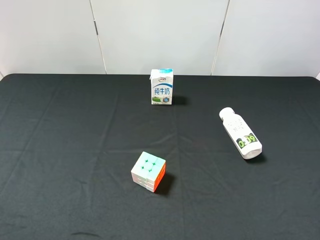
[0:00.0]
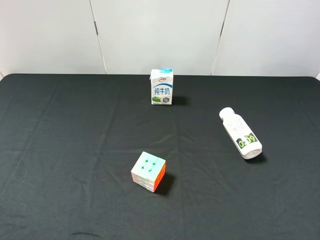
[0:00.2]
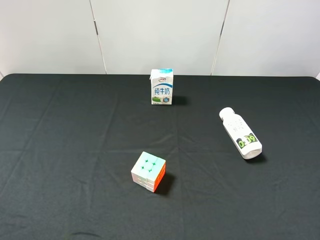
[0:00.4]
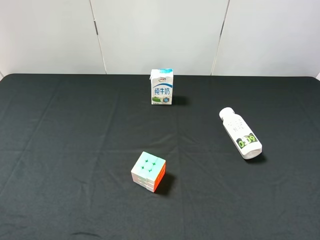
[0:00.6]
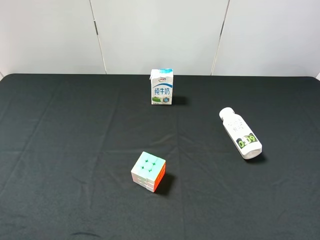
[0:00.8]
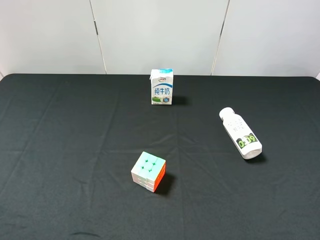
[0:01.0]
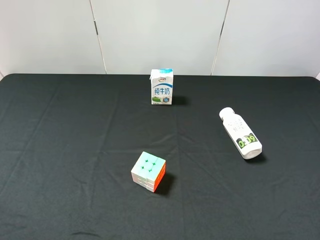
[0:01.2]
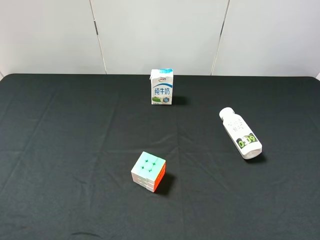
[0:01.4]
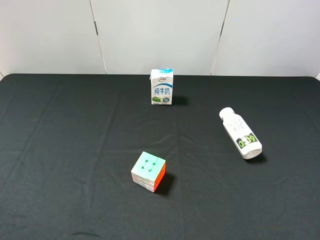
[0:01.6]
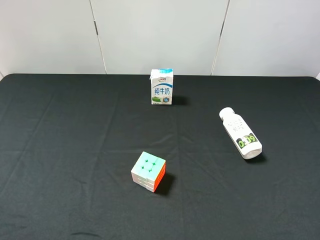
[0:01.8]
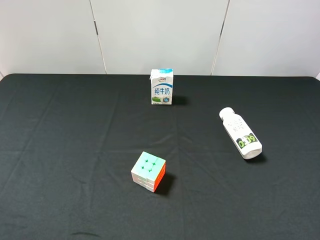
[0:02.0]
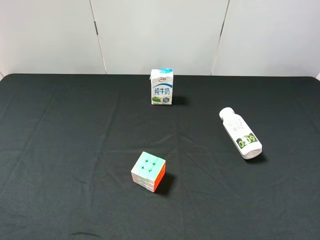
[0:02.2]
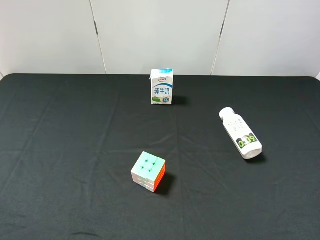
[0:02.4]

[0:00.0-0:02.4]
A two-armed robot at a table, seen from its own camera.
Task of the whole recording: use the left gripper to pick up the item and transfer it from the left gripper to the right gripper.
0:01.2 to 0:02.4: Both grippers stay put.

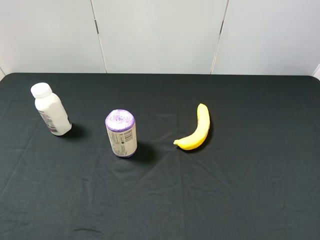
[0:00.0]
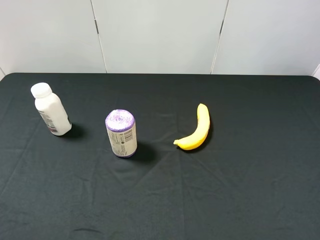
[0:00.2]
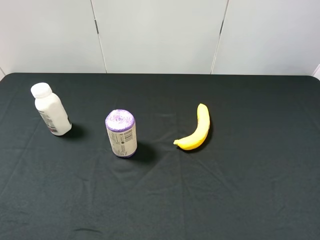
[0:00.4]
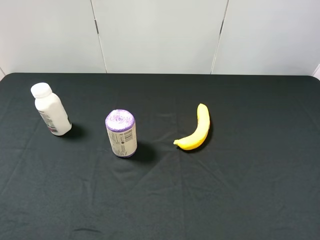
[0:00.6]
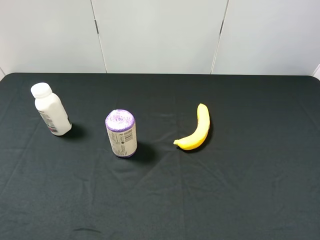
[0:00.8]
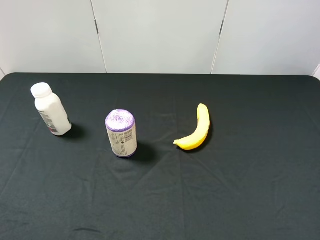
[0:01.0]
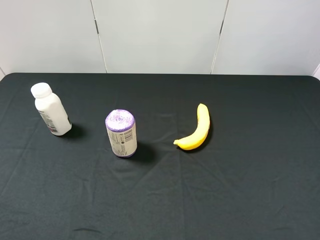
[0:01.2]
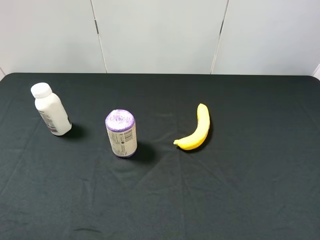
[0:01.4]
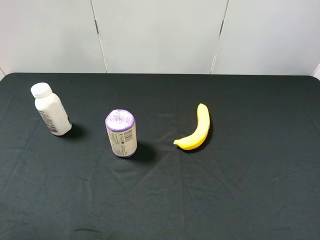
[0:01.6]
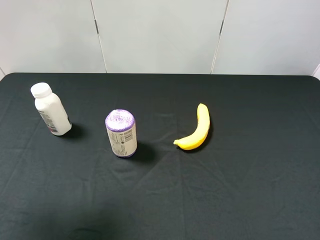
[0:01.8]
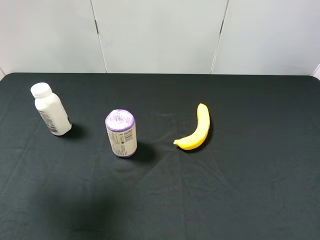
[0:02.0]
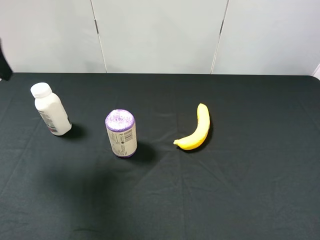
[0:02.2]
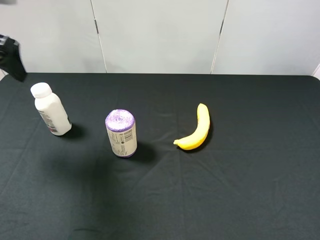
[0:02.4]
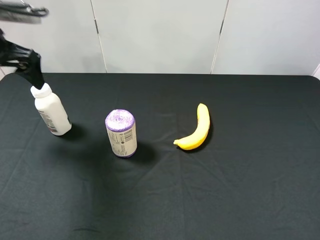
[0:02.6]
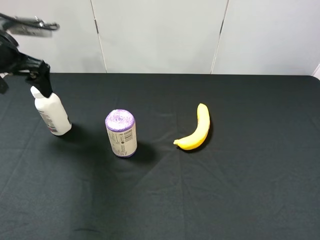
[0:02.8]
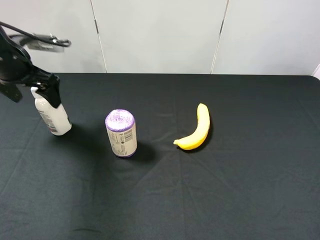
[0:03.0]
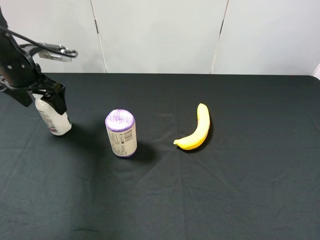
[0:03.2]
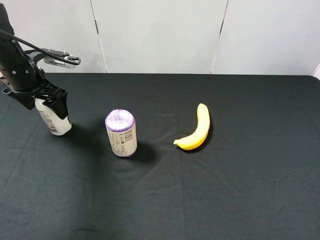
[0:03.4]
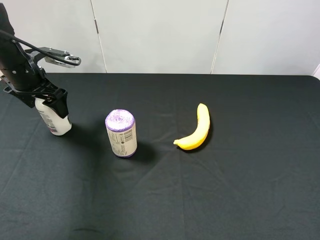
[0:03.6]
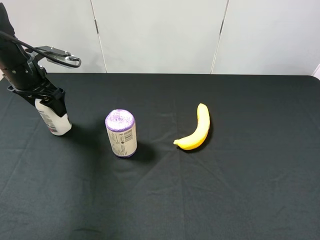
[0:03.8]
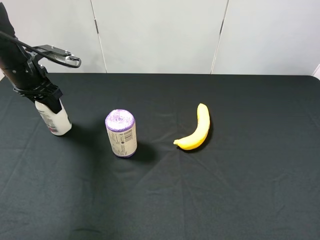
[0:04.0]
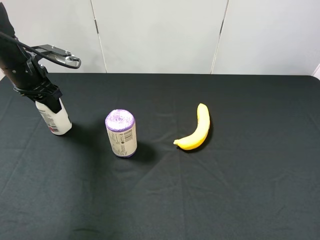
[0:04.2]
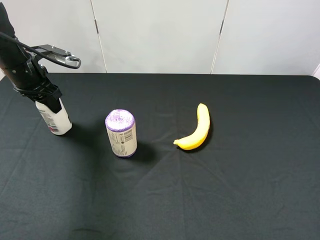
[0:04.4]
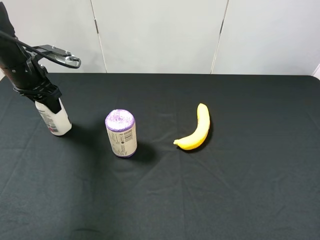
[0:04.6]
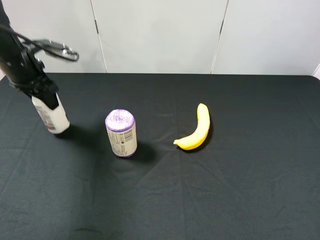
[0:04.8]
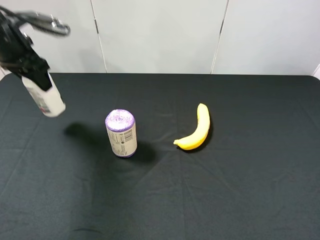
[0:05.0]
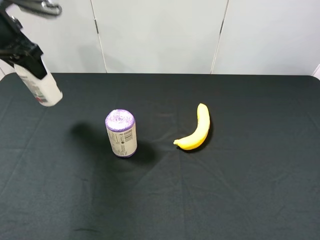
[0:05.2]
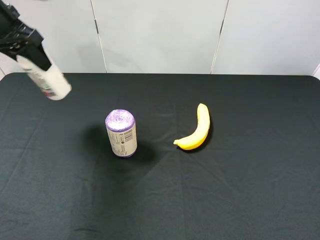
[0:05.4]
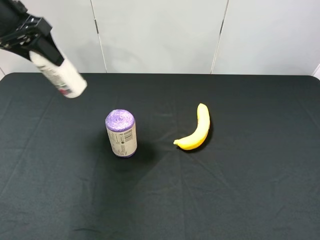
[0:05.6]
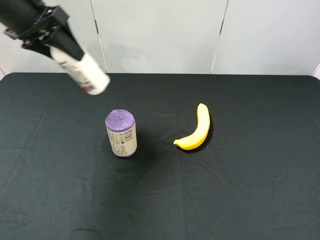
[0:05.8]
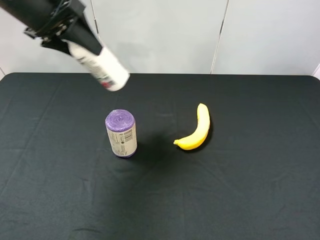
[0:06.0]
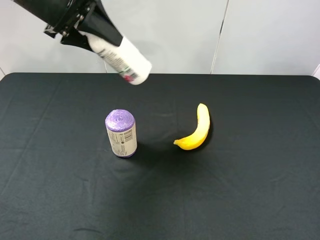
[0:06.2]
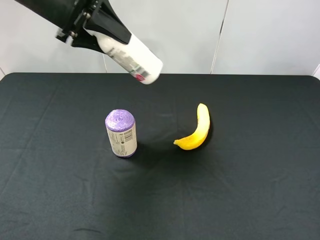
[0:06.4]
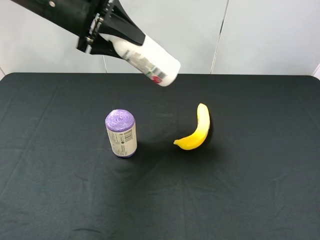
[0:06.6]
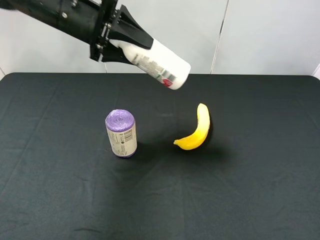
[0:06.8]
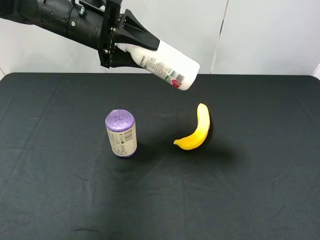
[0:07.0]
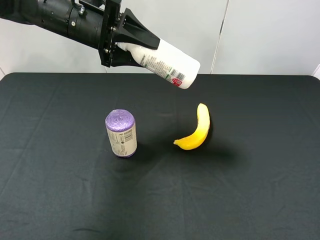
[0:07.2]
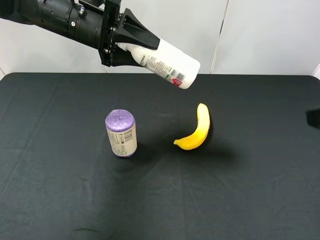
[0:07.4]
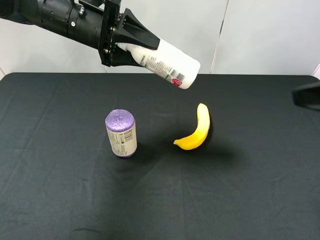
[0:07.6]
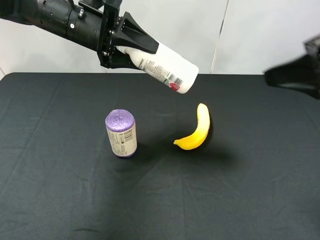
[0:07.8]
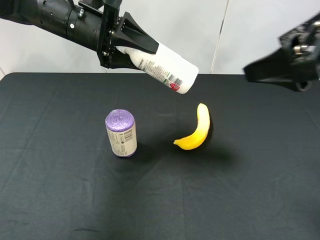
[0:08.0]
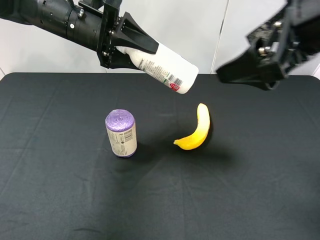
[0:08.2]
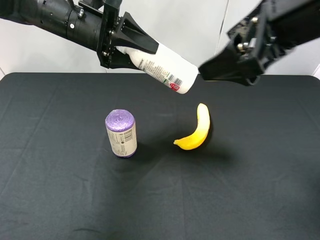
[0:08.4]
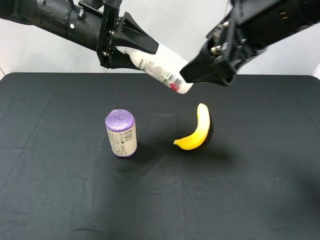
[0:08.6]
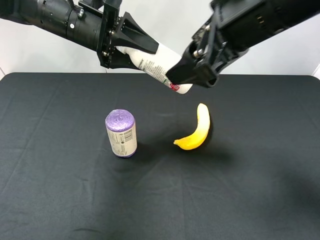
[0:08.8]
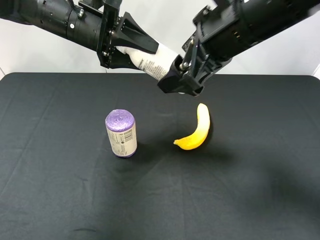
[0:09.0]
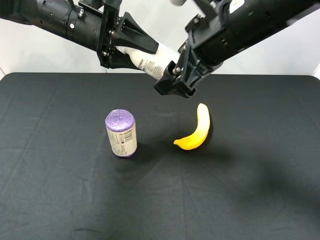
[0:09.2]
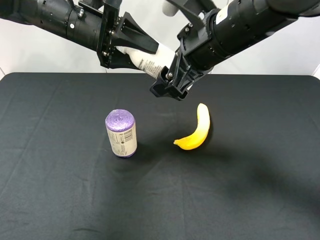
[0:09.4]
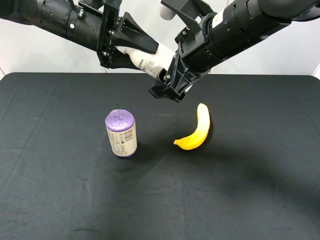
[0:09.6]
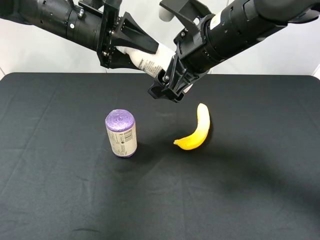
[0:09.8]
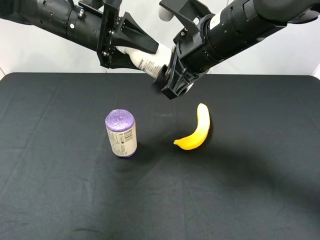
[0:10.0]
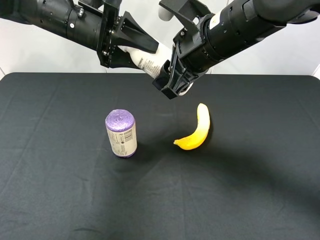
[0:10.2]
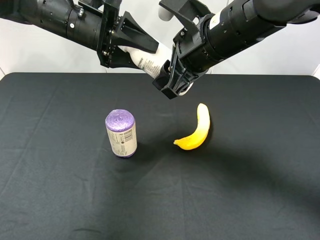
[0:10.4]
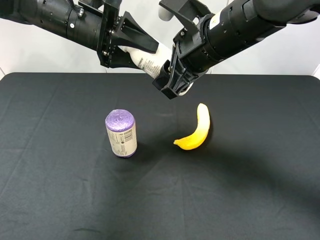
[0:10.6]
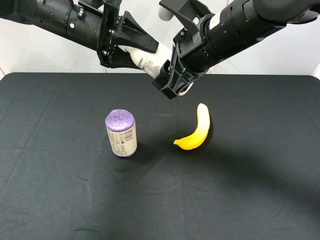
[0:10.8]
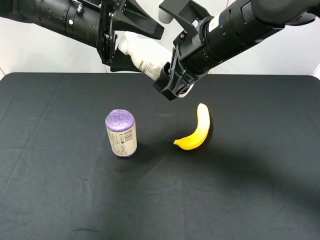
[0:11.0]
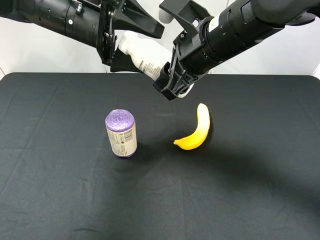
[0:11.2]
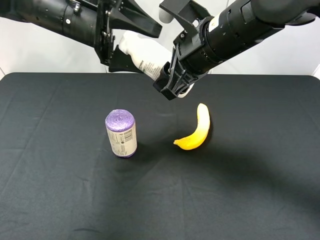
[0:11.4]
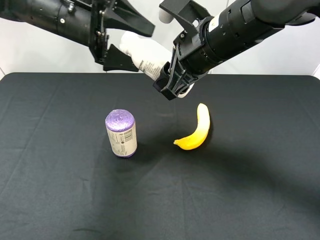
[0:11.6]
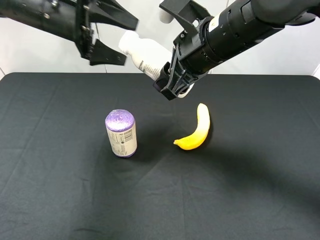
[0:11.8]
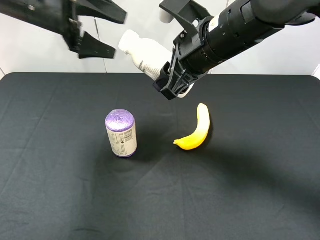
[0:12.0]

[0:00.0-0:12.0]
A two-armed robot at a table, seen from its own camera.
Task of the whole recording: use the left gripper to pick up the item and transfer it from the left gripper to the right gripper.
0:01.6 to 0:03.0: The left gripper goes roughly 30 cm forward and downward.
0:03.0 to 0:04.4: The left gripper closes its fingers.
0:04.4 to 0:06.0: The left gripper is displaced upward and to the right by about 15 cm.
0:06.0 to 0:07.6: The left gripper travels downward and to the right by some 10 cm. The right gripper goes about 15 cm forward and upward.
0:07.6 to 0:09.0: The right gripper moves to the left and forward, roughly 20 cm.
0:09.0 to 0:10.4: The right gripper closes its fingers.
0:10.4 to 0:12.0: The left gripper travels to the left by some 10 cm, and opens.

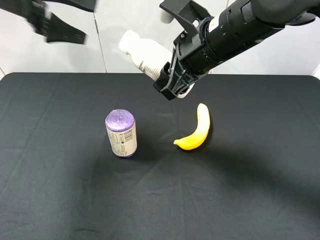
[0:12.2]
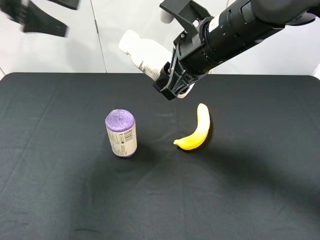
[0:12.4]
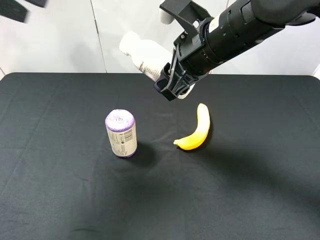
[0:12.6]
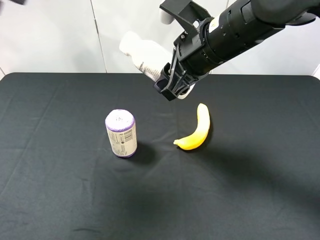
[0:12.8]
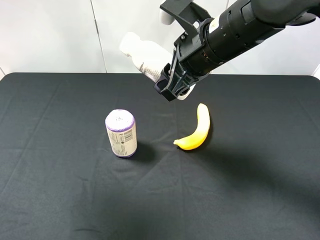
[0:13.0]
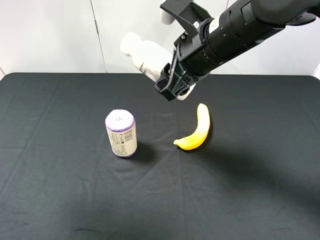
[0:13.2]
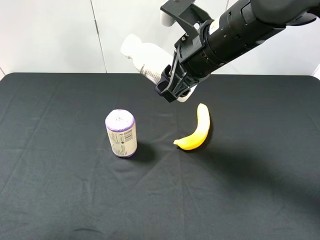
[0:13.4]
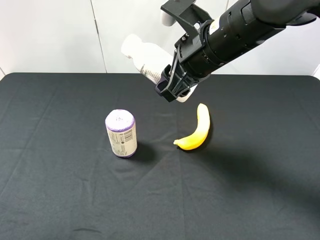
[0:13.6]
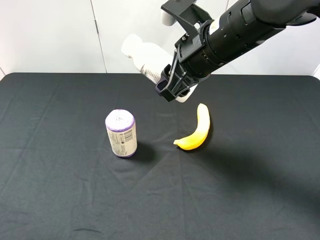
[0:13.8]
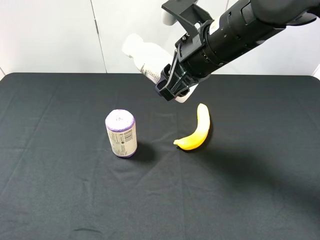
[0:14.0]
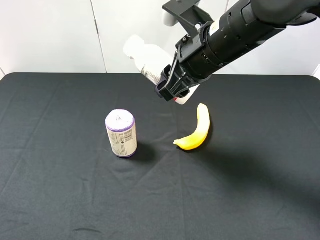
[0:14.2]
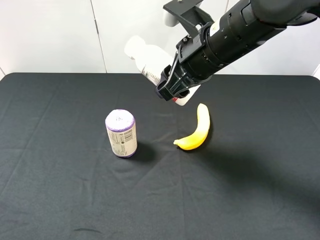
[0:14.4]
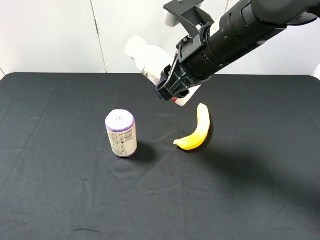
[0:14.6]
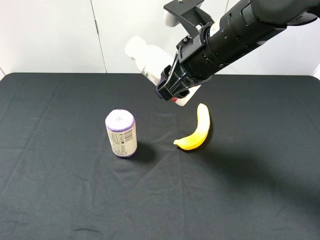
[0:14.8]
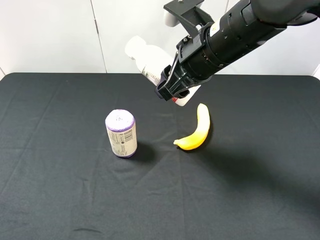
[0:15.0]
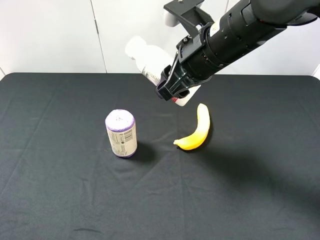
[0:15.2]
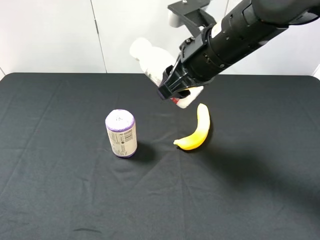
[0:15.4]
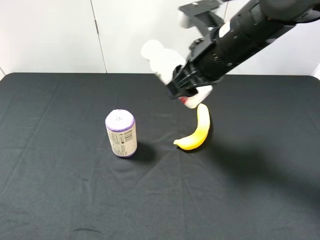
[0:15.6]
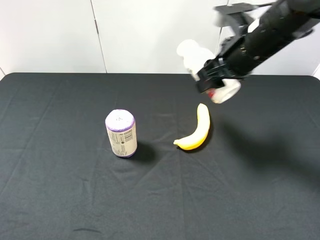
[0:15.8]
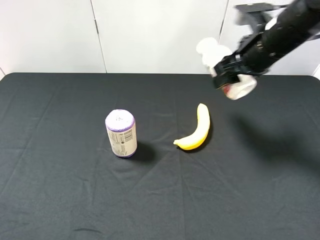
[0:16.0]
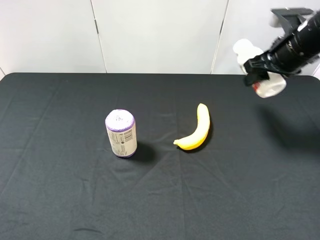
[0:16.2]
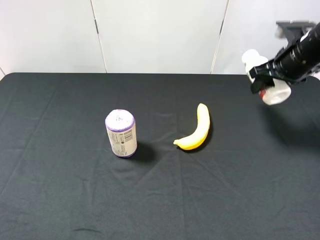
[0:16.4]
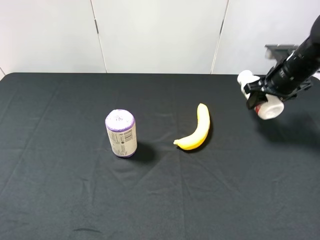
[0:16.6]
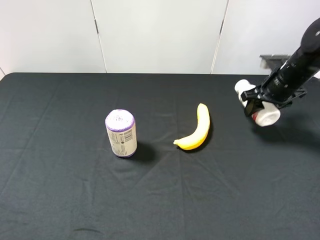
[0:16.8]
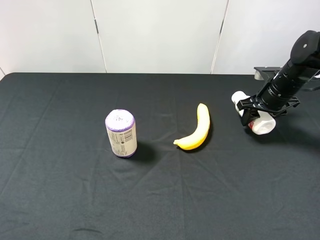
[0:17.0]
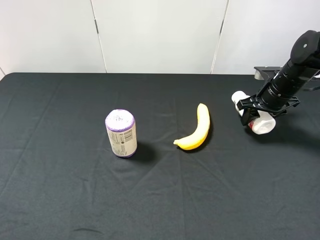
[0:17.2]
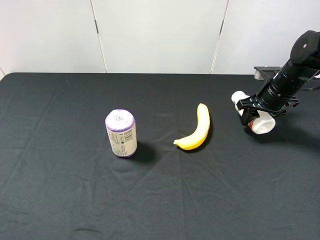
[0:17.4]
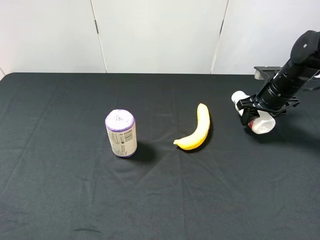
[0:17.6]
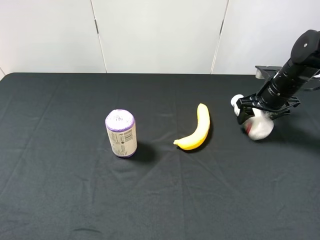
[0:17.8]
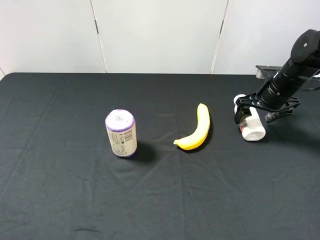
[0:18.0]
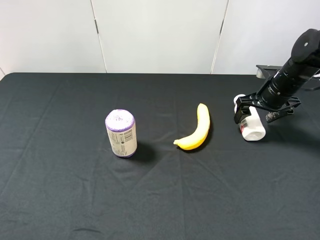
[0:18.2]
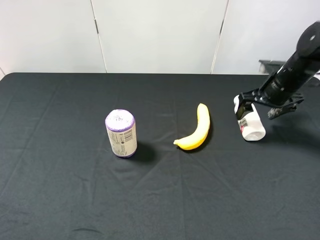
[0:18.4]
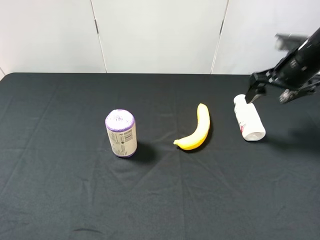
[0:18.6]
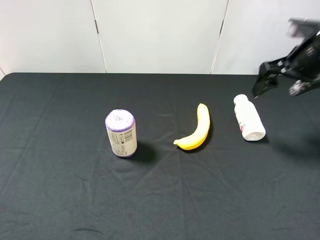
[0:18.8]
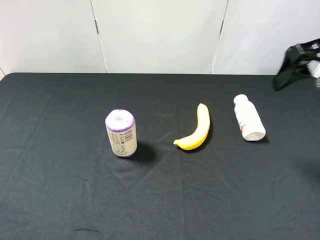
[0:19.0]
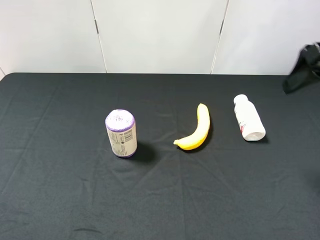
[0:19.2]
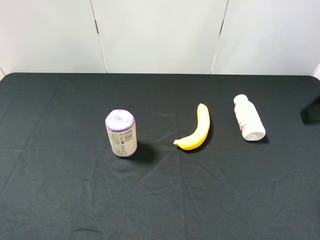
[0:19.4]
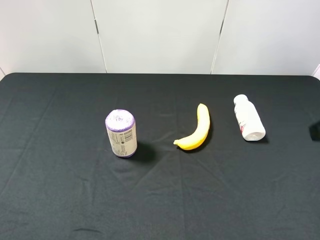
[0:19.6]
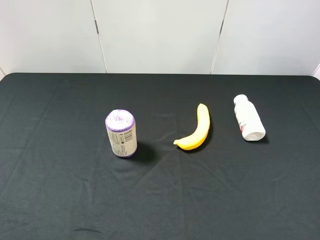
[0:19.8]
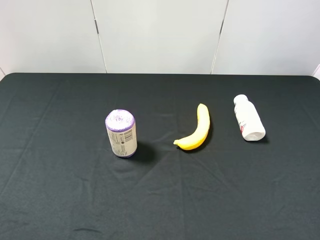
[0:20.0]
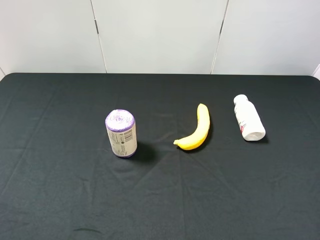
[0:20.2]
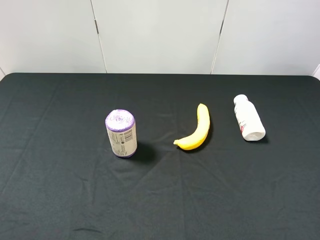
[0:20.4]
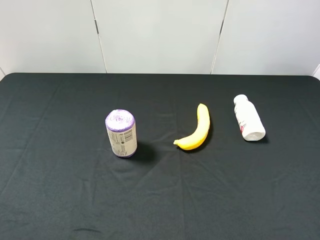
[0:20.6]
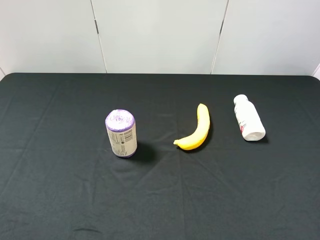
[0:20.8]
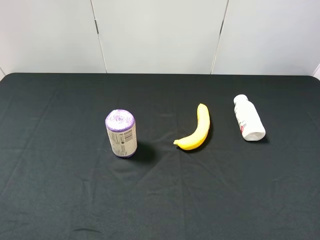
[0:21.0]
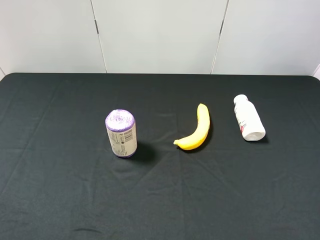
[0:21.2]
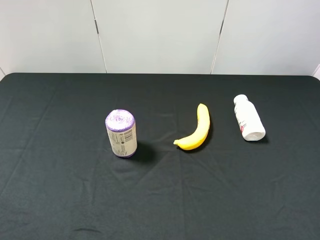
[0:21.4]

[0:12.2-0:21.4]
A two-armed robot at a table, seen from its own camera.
Task of the whole recording: use the left gripper to pick up the item and transfer it from the left gripper to the right gripper.
0:12.2 to 0:13.8: The left gripper is displaced backward by some 35 cm.
0:13.8 to 0:15.2: There are only small adjustments of the grippers.
0:15.2 to 0:16.8: The right gripper travels to the right, downward and forward by about 25 cm.
0:16.8 to 0:18.4: The right gripper opens up.
0:18.4 to 0:19.8: The right gripper moves backward, approximately 30 cm.
